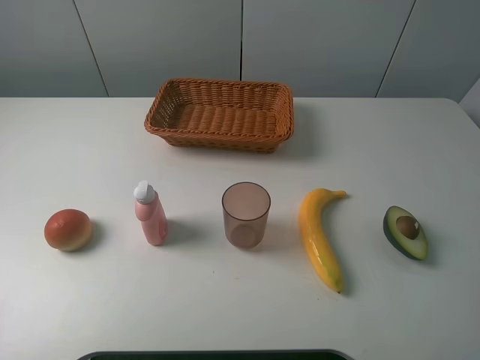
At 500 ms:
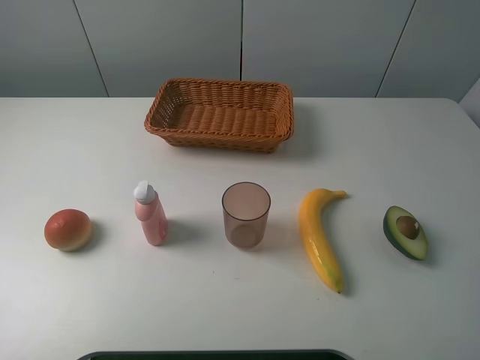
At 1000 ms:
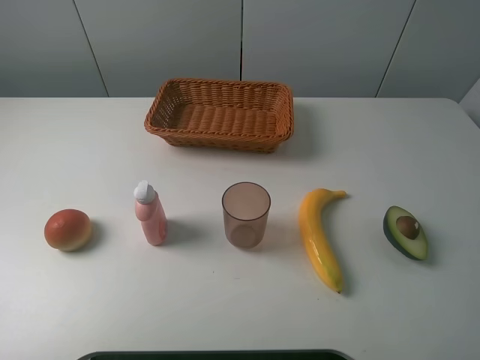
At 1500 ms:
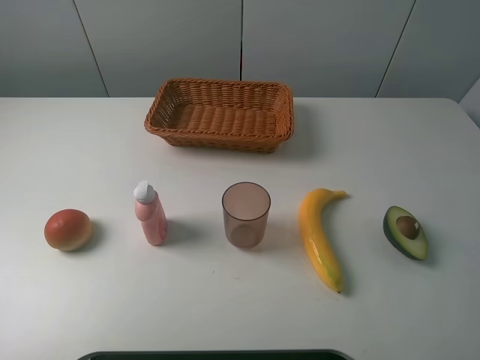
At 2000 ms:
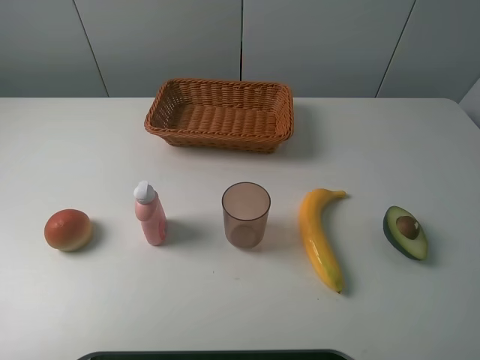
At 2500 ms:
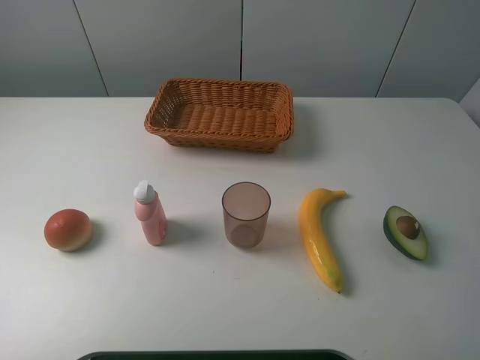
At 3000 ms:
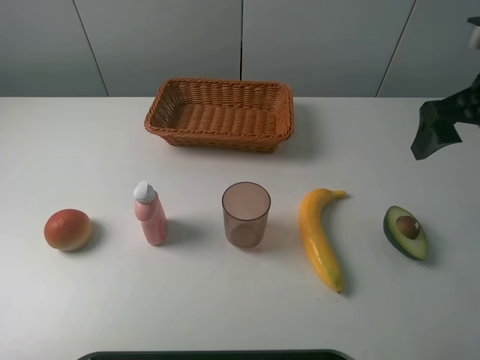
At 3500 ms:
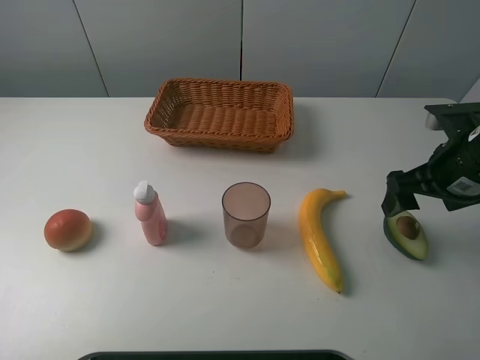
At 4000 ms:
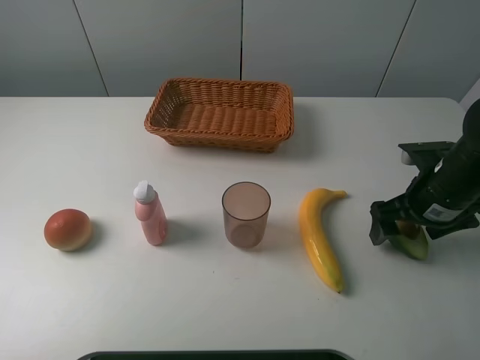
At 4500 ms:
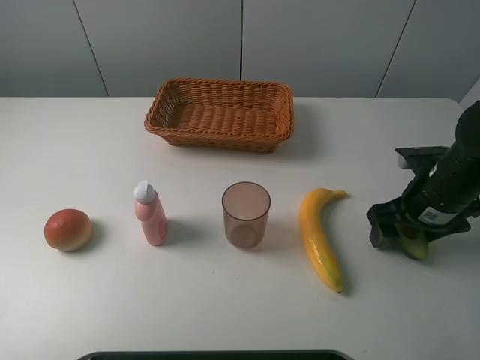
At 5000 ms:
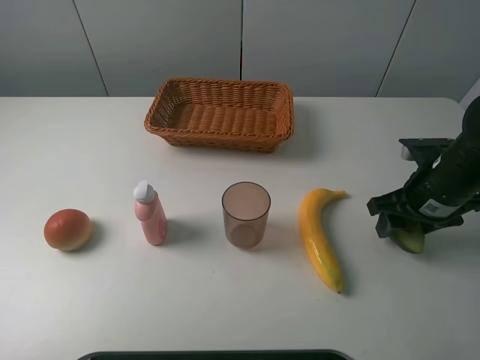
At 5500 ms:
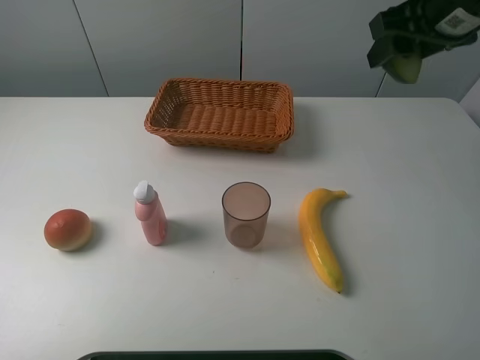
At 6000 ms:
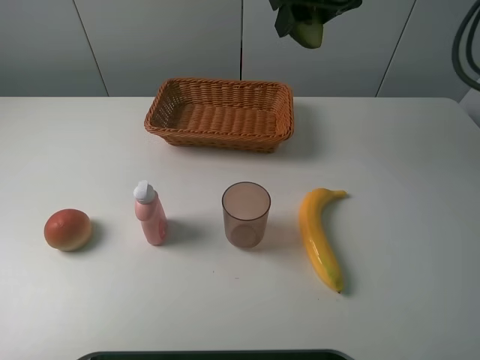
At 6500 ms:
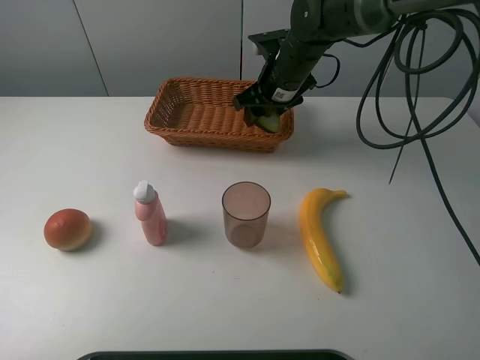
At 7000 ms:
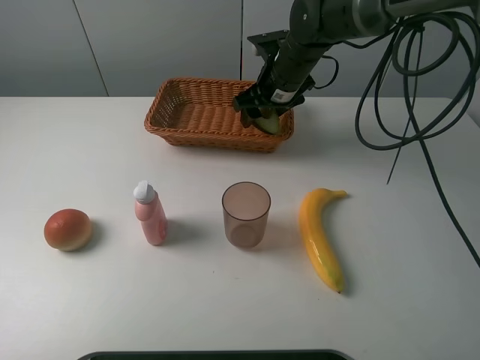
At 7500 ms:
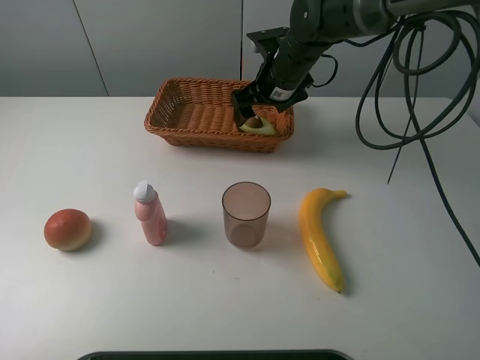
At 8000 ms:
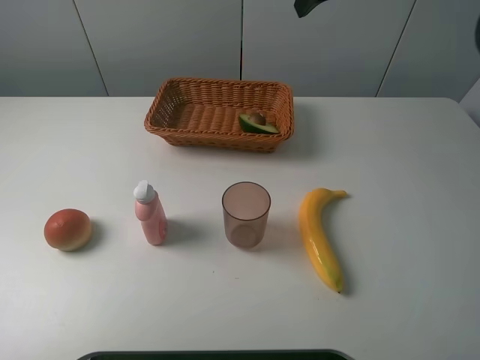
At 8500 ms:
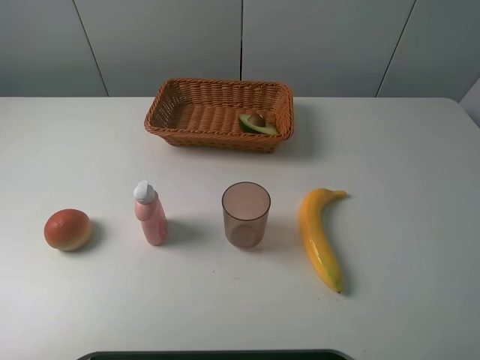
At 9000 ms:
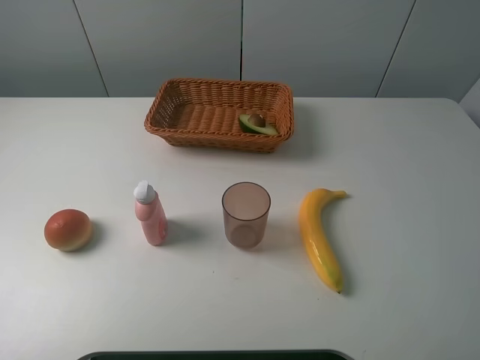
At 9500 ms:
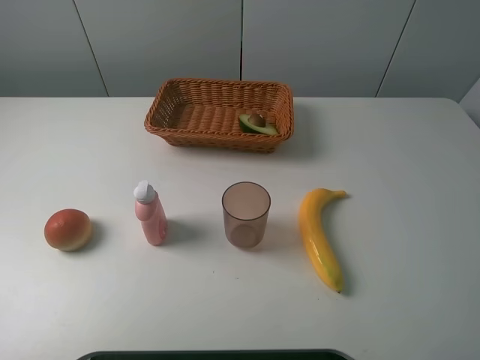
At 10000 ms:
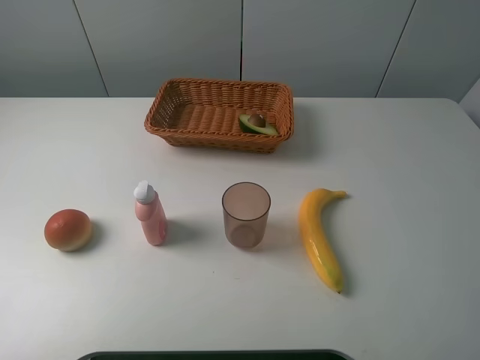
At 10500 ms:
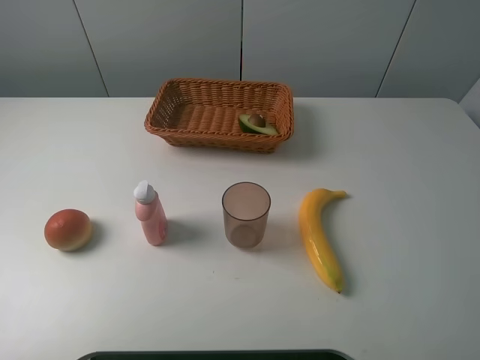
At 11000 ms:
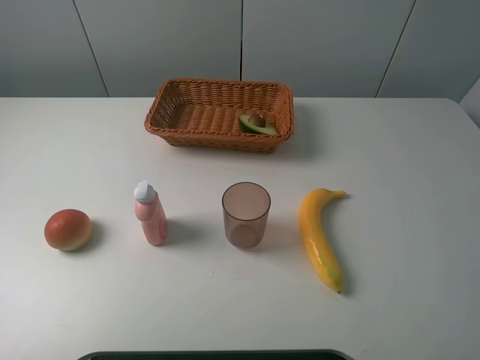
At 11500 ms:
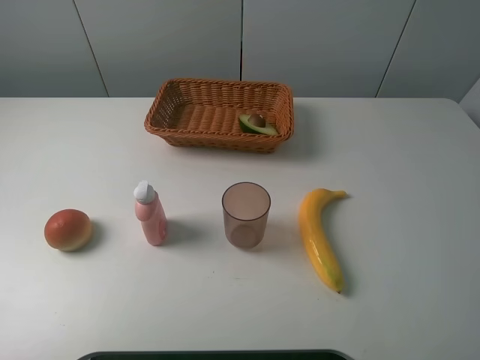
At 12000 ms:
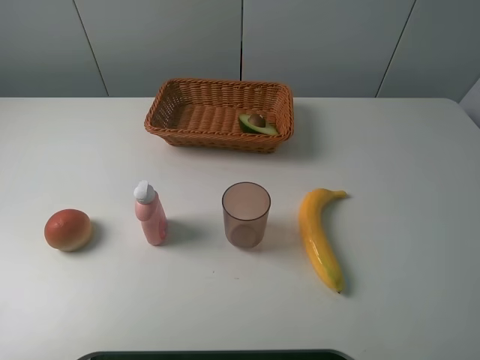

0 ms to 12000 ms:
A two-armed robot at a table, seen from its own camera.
Task of the whole recording: randomly pick up an item from the table and put it in the basket.
Step, 0 ms to 4500 ms: Grasp the avocado with the right gripper.
Step, 5000 ms to 7500 ms: Place the avocado into the basket with the right gripper.
2000 ms to 4000 ms: The right gripper heads forward and downward, covering some 30 cm.
4000 ms to 6000 ms: The right gripper goes approximately 30 cm upward, to the left and forward, and closes up.
6000 ms to 8000 ms: The right gripper moves to the right, roughly 5 cm, reaches roughly 15 cm downward, then returns, and opens up.
10000 ms to 12000 ms: The two grippers keep their place.

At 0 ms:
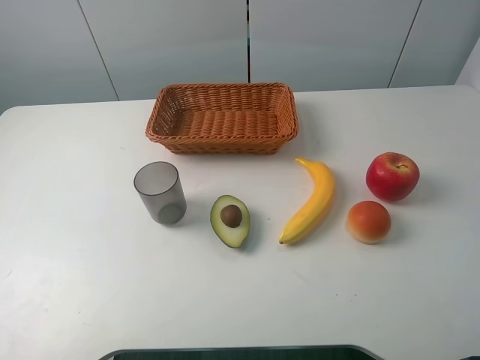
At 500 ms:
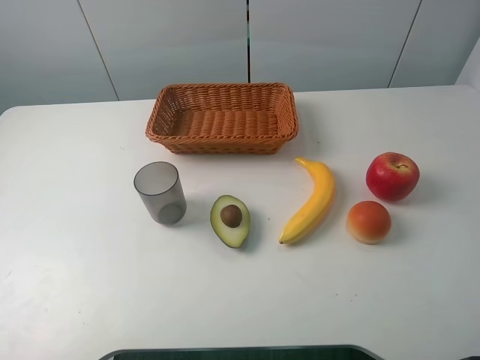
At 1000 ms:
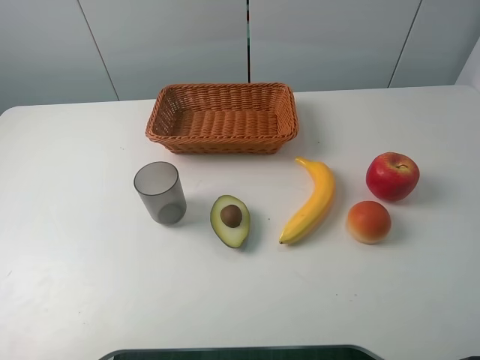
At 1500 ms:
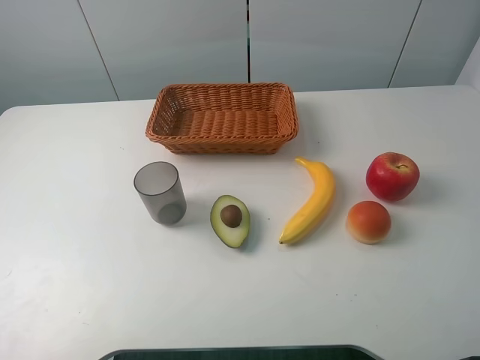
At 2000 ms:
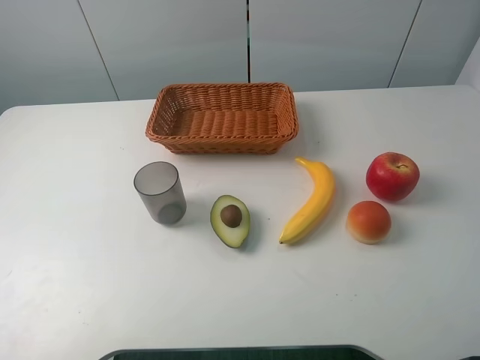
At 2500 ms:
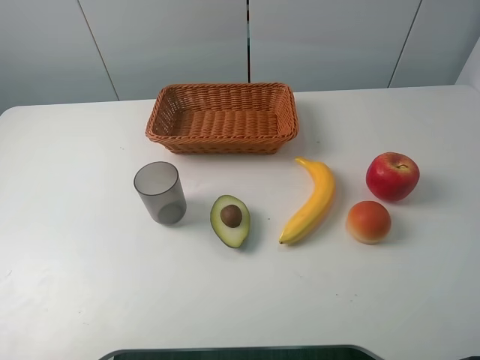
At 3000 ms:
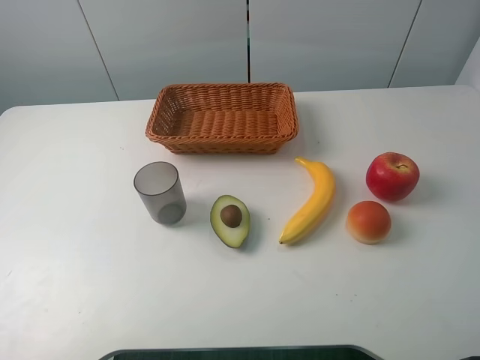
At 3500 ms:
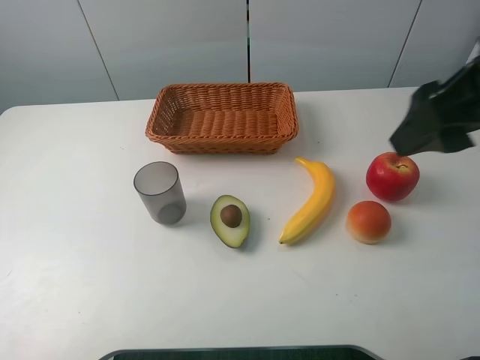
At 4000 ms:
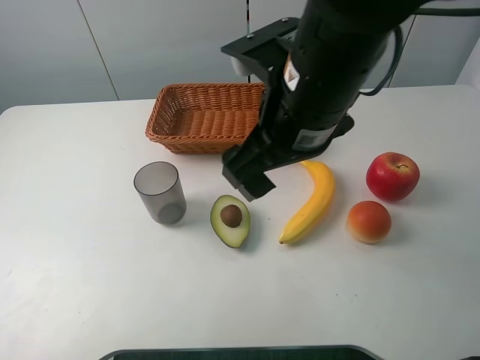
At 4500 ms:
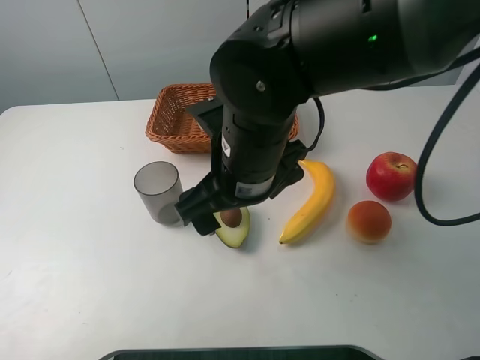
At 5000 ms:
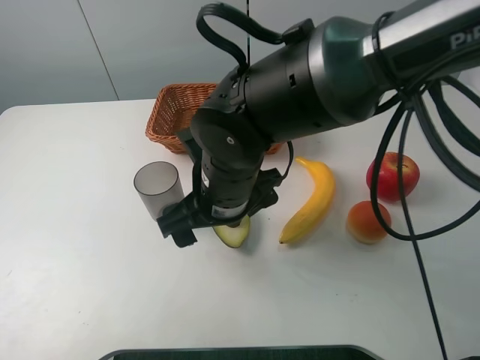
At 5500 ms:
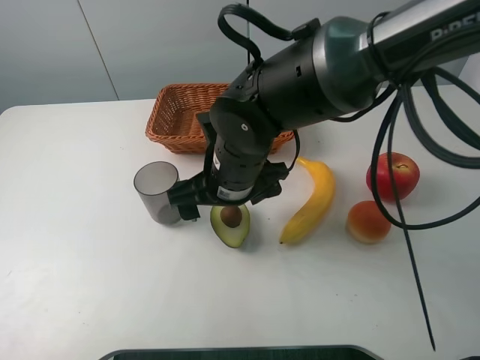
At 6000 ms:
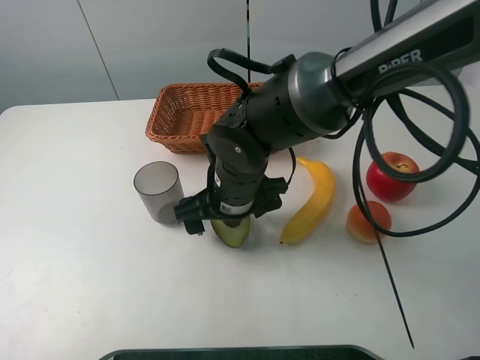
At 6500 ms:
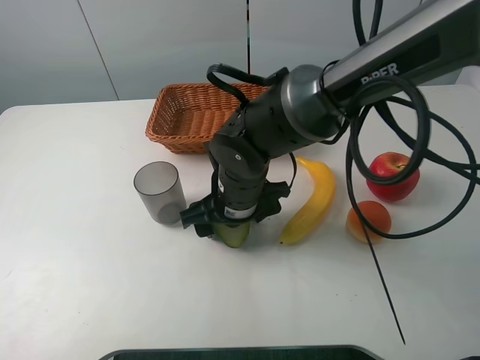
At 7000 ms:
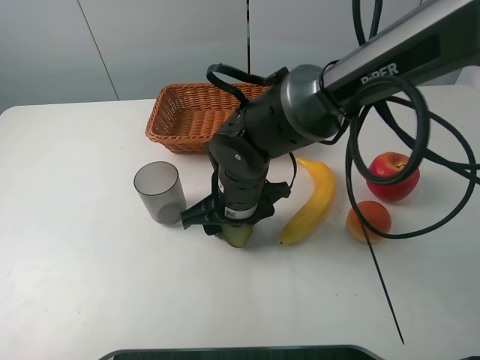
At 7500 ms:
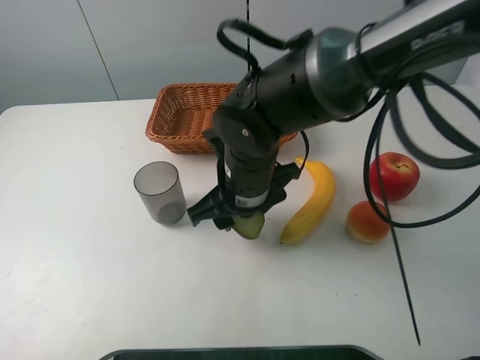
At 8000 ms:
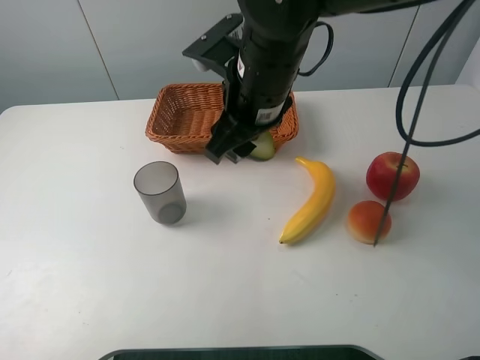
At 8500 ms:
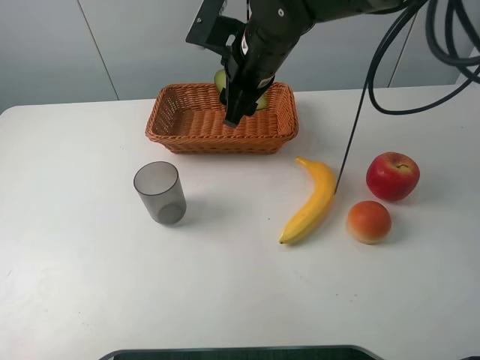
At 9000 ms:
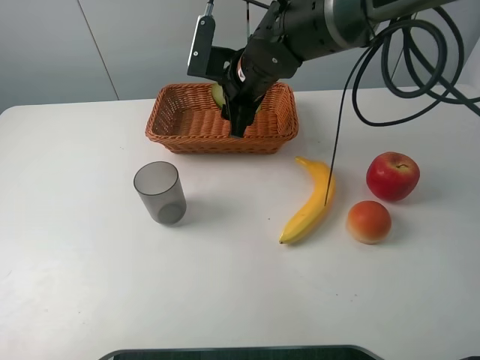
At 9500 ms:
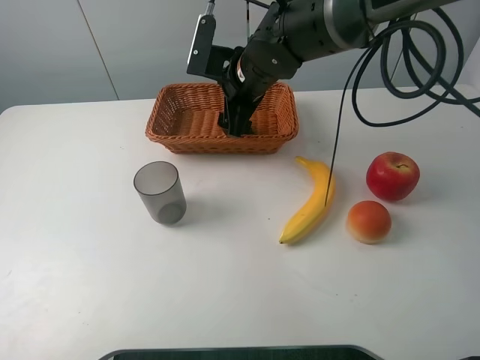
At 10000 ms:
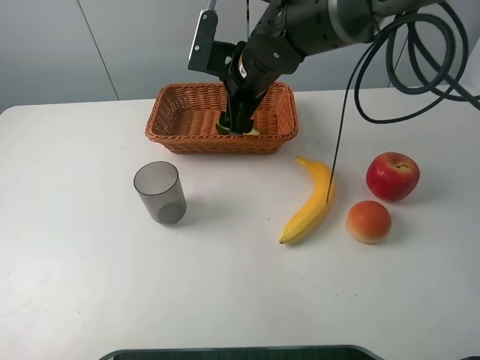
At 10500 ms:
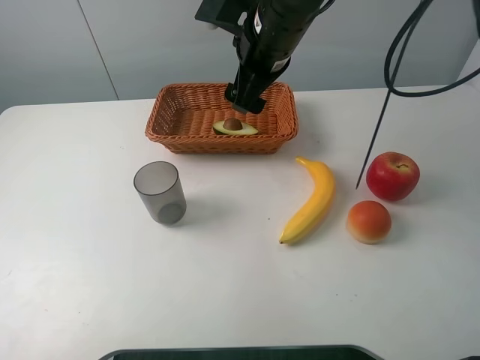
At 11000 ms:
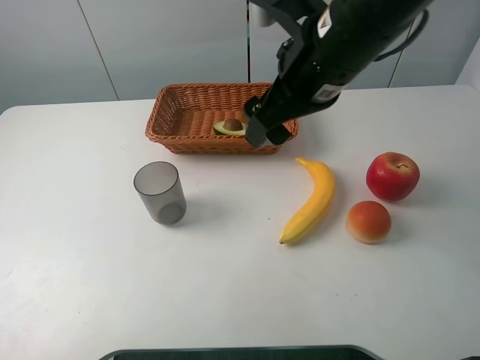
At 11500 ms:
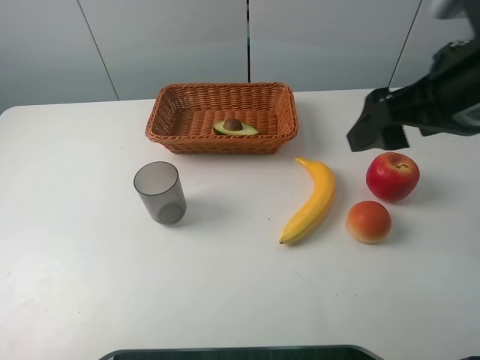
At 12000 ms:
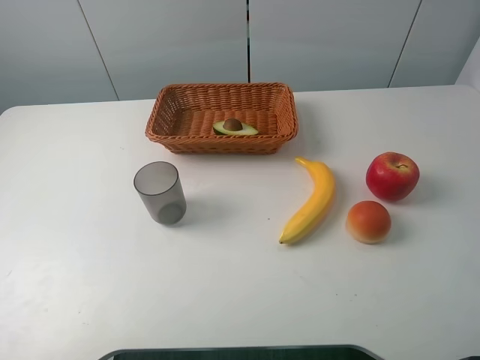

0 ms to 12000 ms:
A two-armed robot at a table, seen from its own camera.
Task of the whole recording: randomly pick up an item from the table and put it in the basket.
Step, 0 ms to 6500 ms: Grasp the avocado with the right gripper.
Step, 7000 ms to 10500 ms: Place the avocado into the basket with the right gripper.
2000 ms to 4000 ms: The right gripper goes approximately 30 cm to the left and forward, and opens.
4000 ms to 6000 ms: The right gripper heads downward, covering approximately 15 cm.
6000 ms to 8000 ms: The right gripper travels upward by roughly 15 cm, and closes up.
8000 ms to 10000 ms: The right gripper travels forward and downward by roughly 10 cm, and opens up.
10000 ms to 12000 ms: The right gripper goes approximately 40 cm backward, to the right and upward.

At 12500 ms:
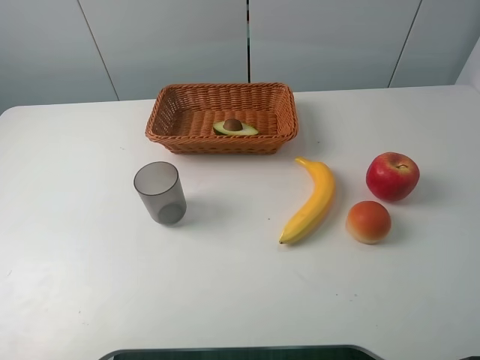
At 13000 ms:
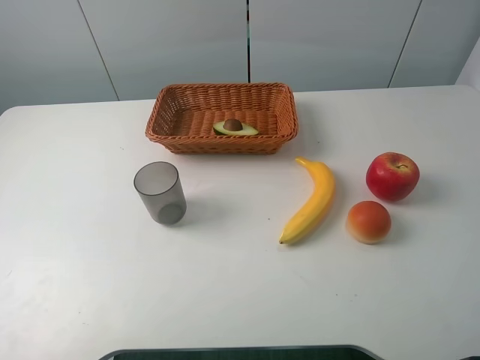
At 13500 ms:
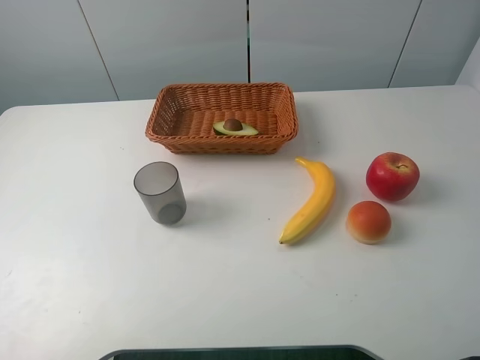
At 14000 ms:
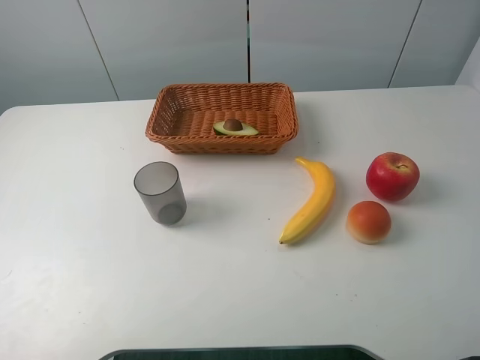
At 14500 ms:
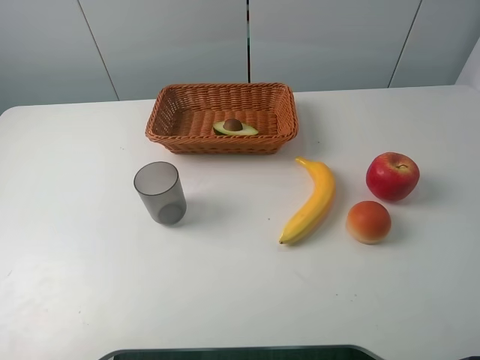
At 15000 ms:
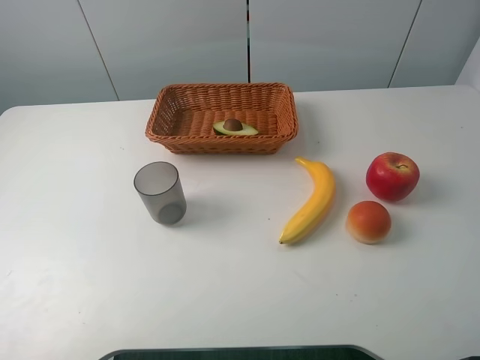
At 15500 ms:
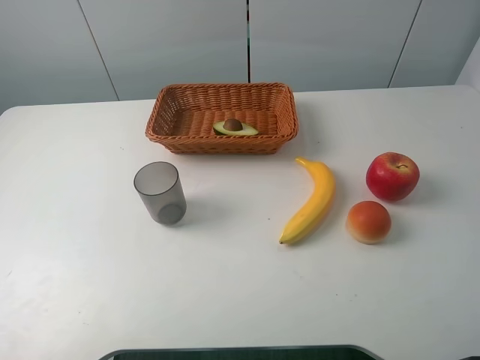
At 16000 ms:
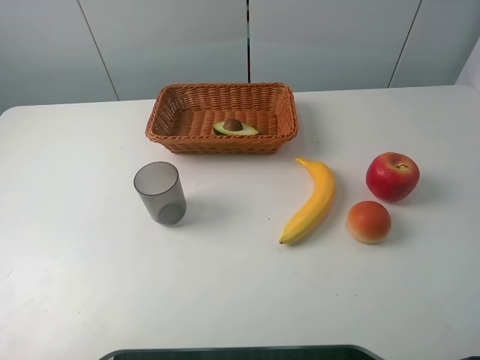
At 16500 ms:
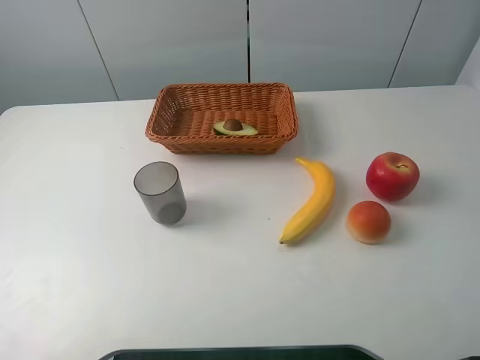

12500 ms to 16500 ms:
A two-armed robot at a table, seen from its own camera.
Task of the whole recording: randomly pick up an item from the table and put it in the basket.
14500 ms to 16500 ms: The two grippers keep their place.
